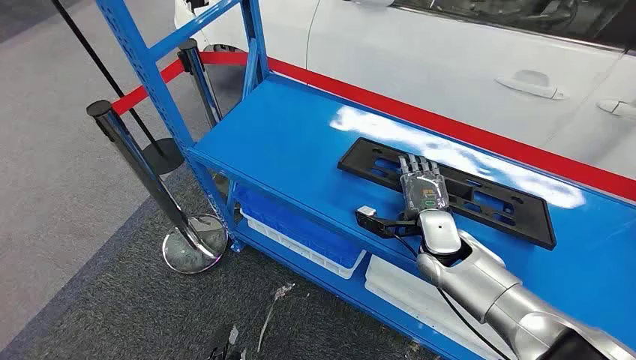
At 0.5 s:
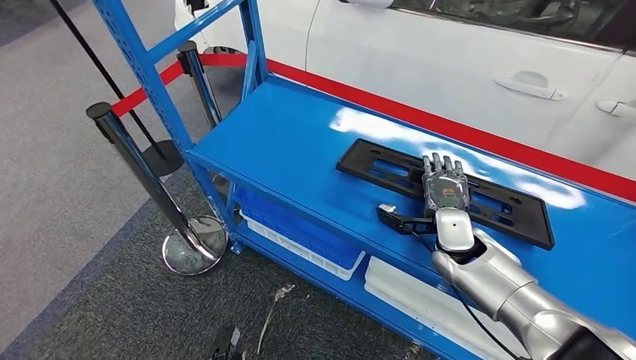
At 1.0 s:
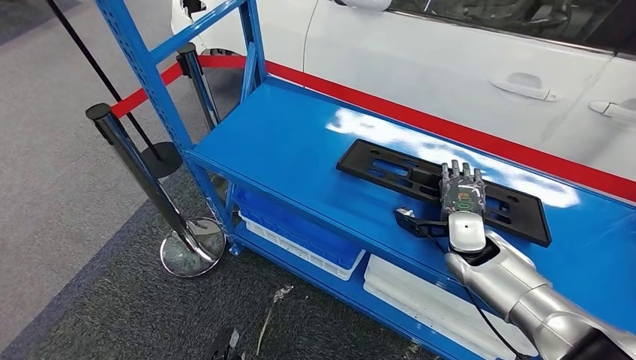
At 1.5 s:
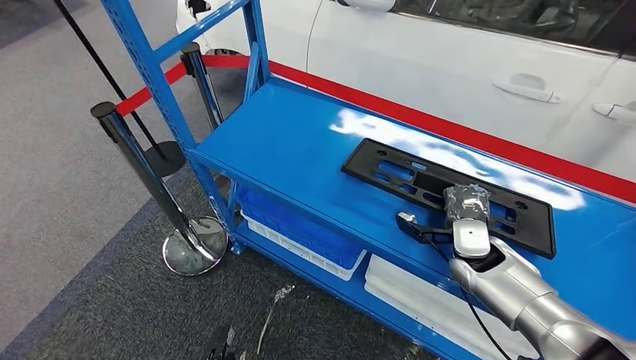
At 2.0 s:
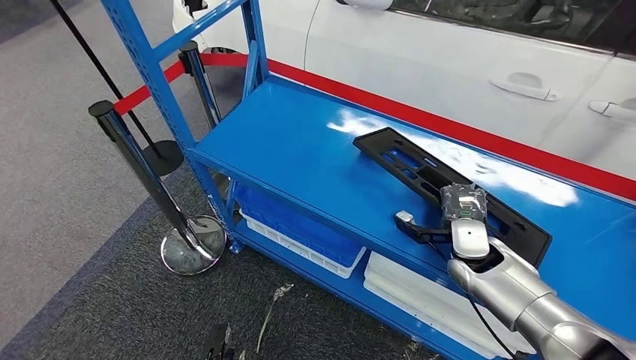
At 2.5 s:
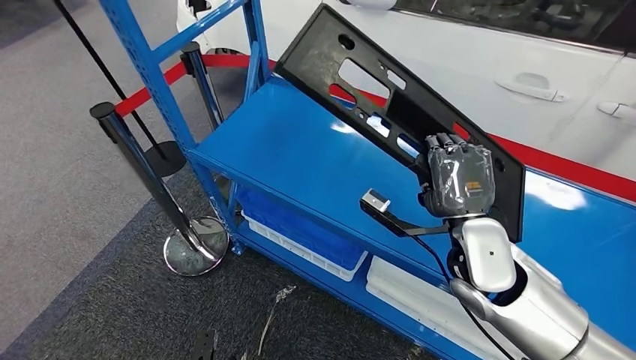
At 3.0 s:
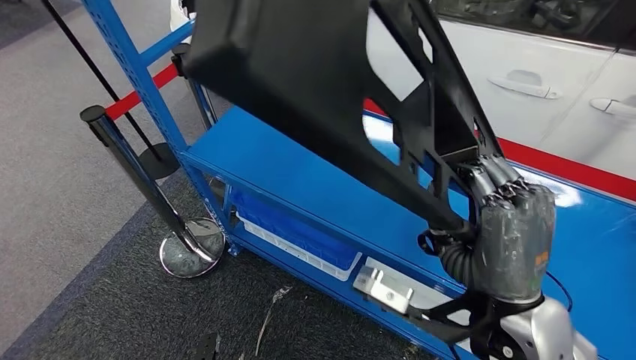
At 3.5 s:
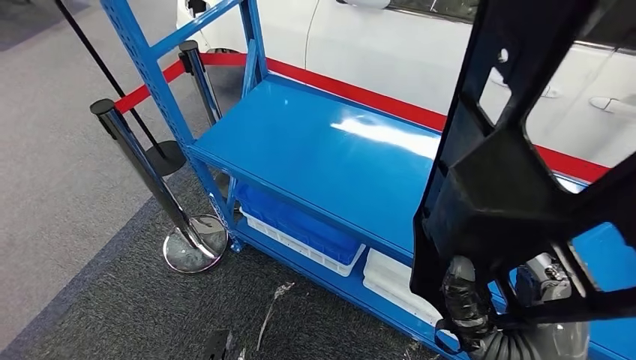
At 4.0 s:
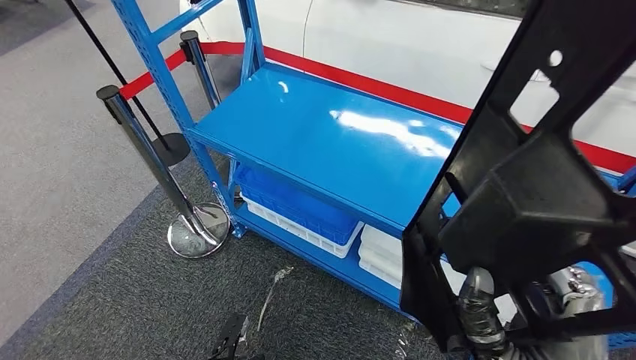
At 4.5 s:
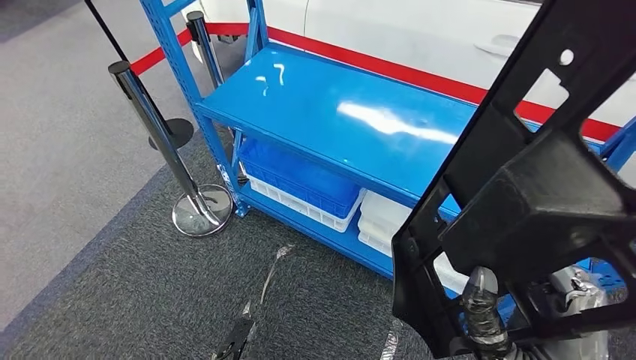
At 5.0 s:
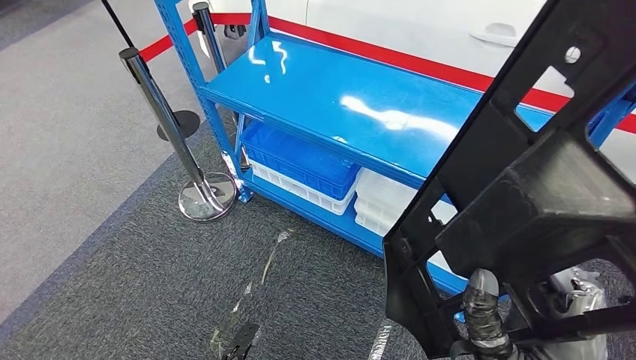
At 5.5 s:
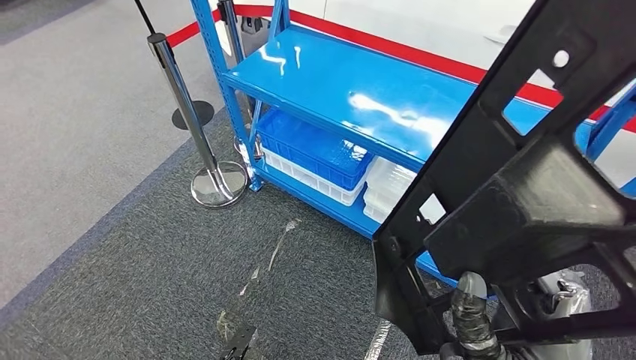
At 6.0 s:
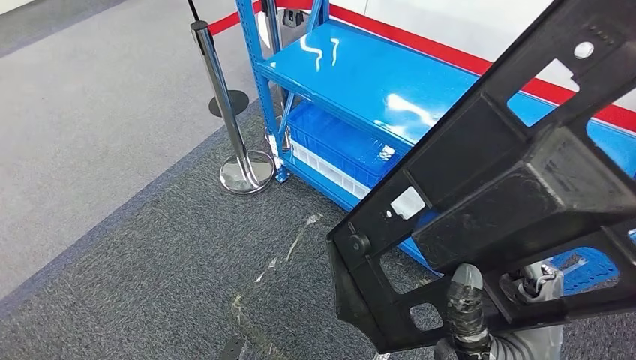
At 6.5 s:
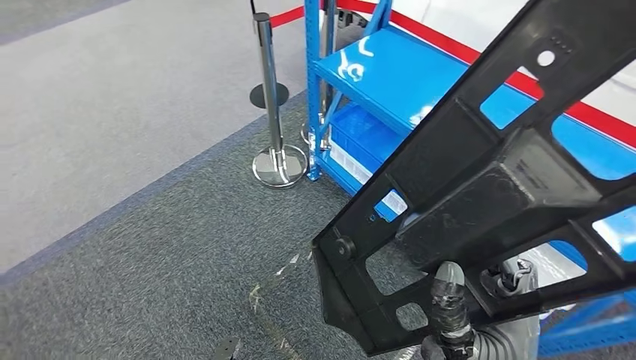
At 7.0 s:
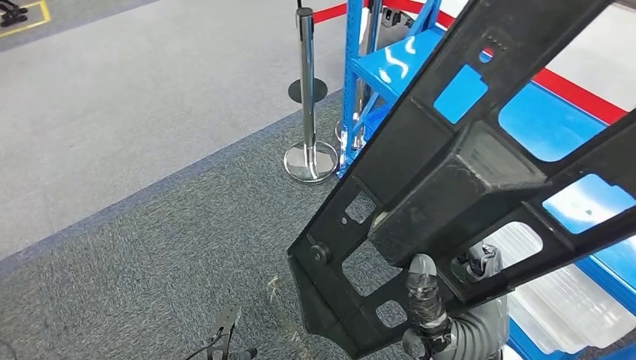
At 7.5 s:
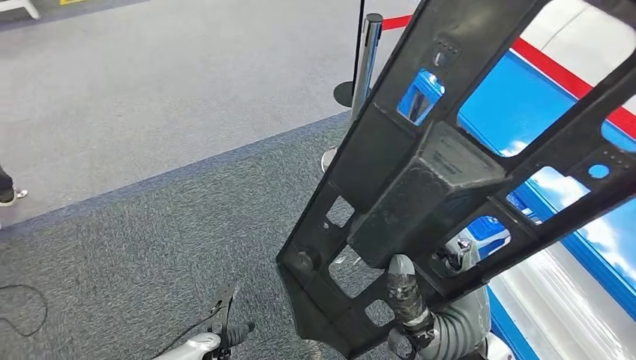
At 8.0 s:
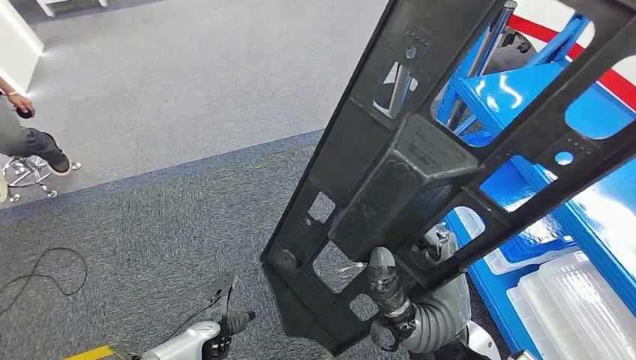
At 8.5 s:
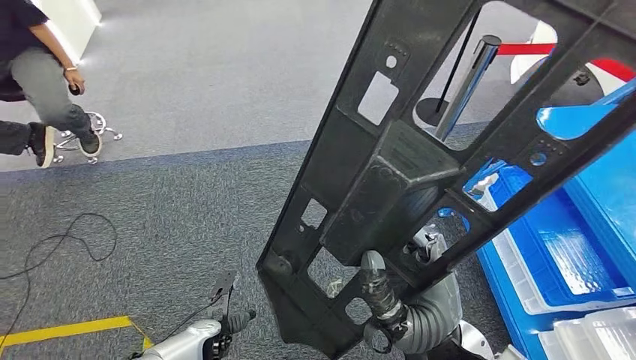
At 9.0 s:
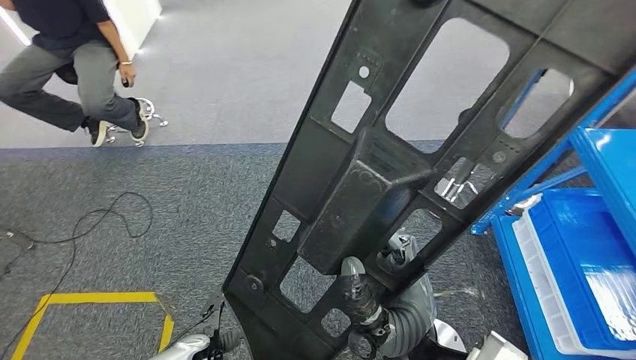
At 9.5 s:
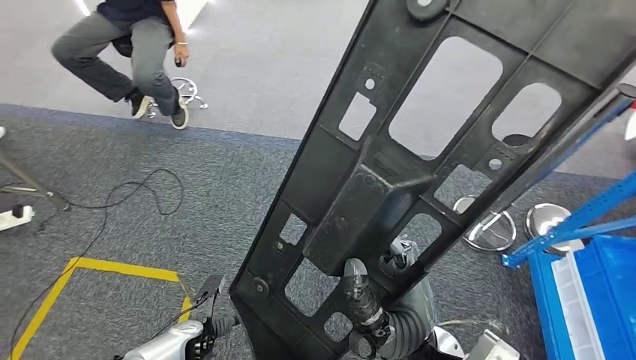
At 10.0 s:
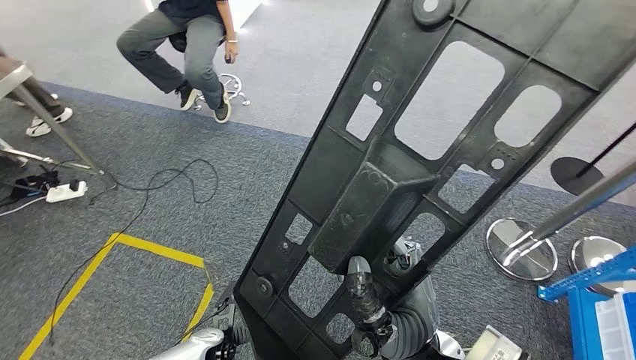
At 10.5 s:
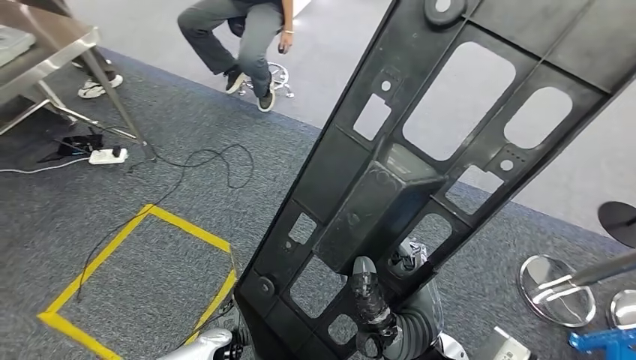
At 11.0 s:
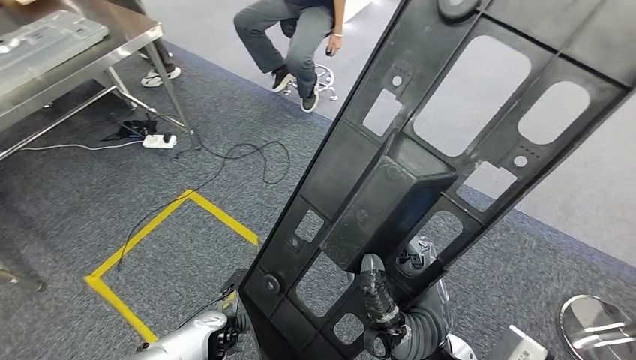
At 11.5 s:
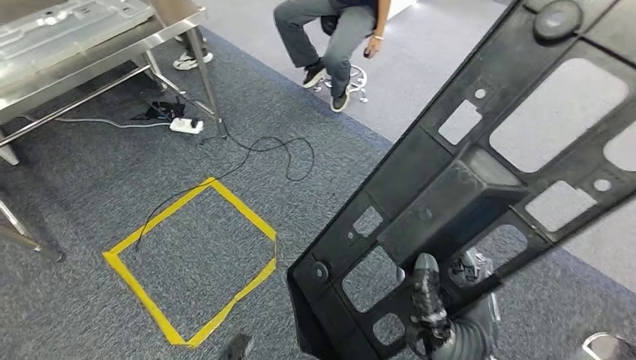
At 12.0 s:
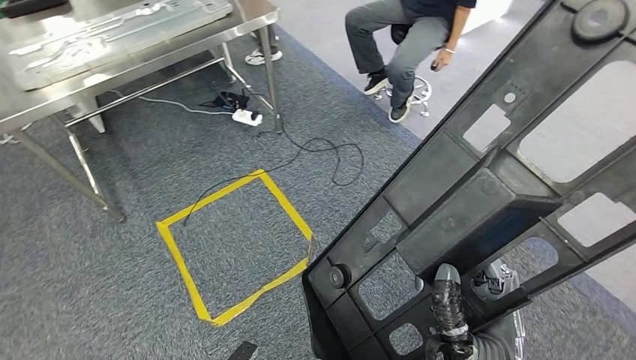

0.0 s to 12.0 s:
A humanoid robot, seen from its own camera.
Step, 0.0 to 4.0 s: Pick up the large material from the shelf.

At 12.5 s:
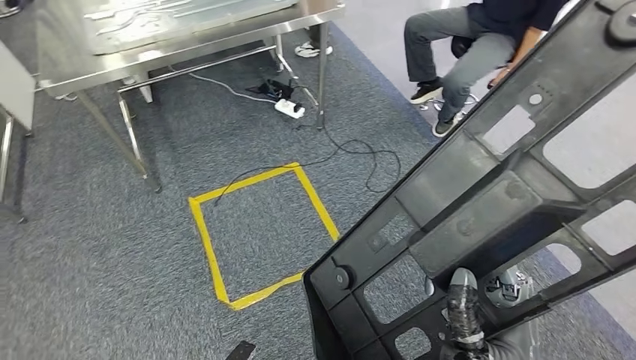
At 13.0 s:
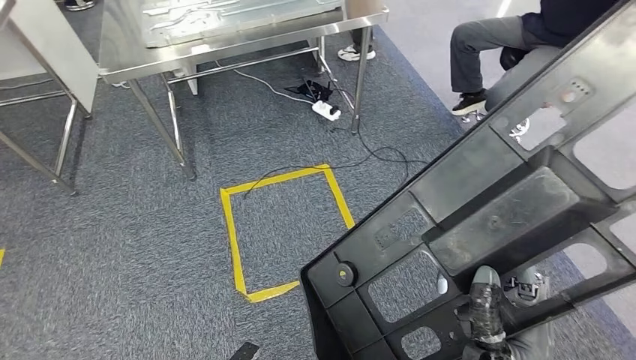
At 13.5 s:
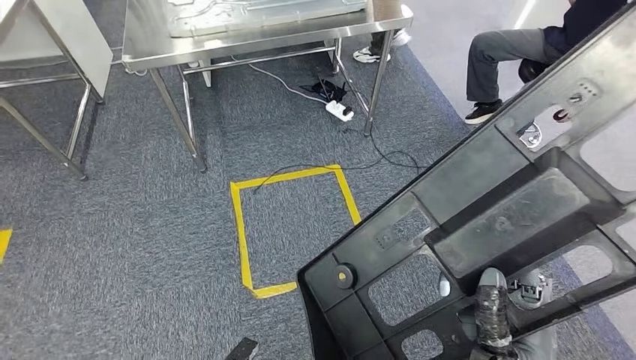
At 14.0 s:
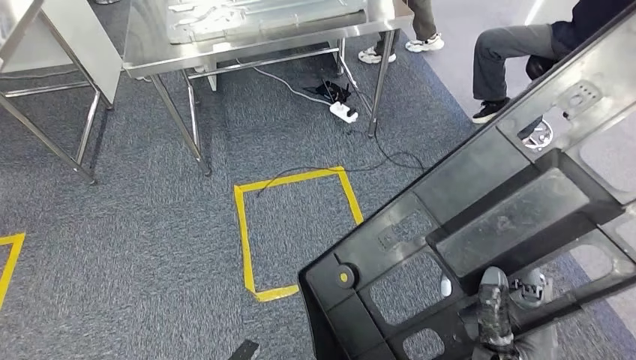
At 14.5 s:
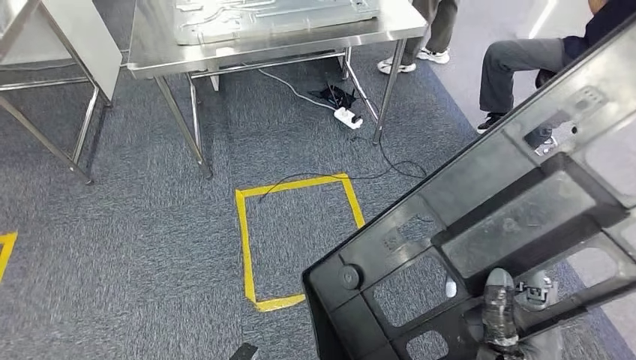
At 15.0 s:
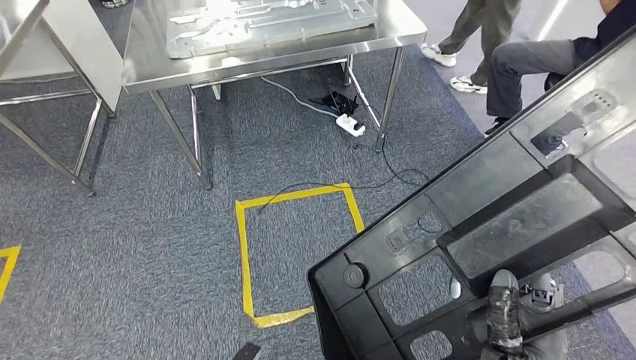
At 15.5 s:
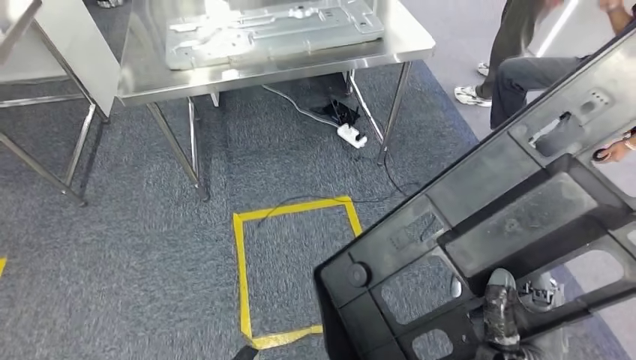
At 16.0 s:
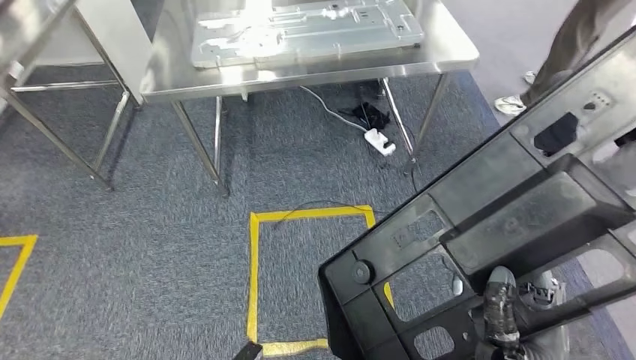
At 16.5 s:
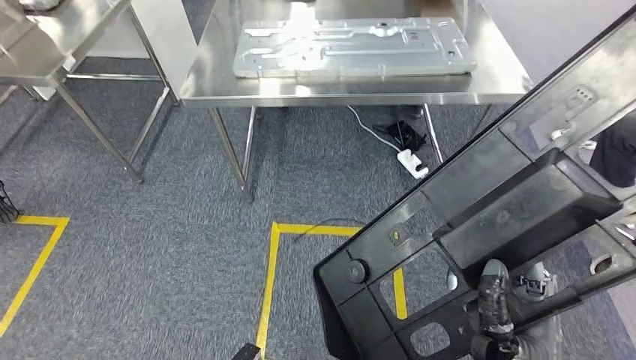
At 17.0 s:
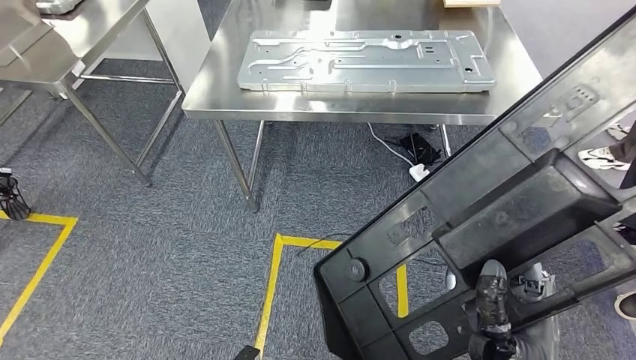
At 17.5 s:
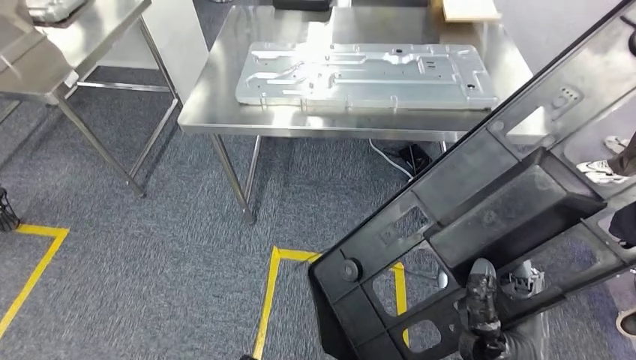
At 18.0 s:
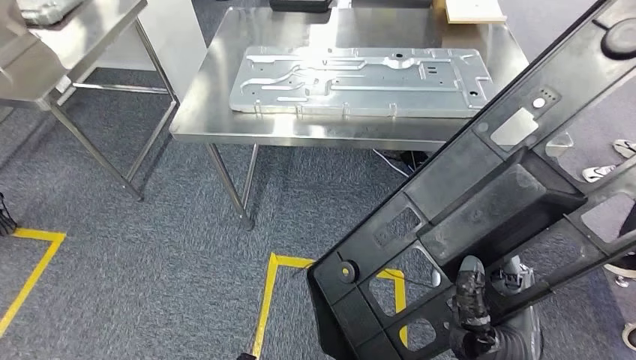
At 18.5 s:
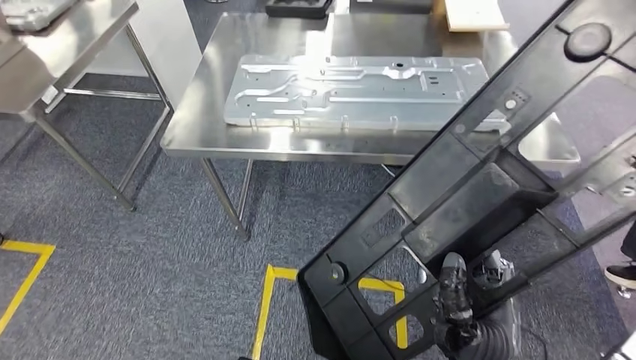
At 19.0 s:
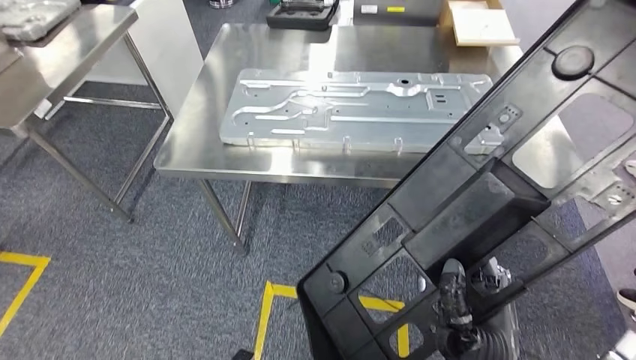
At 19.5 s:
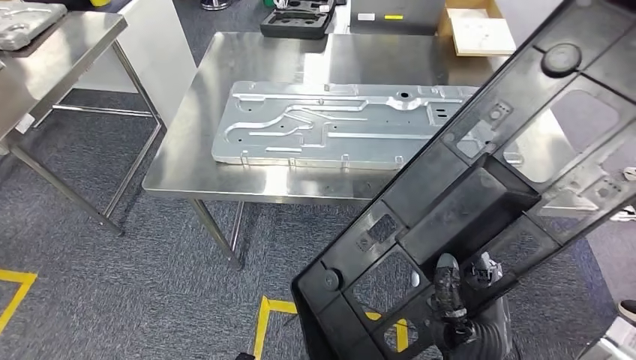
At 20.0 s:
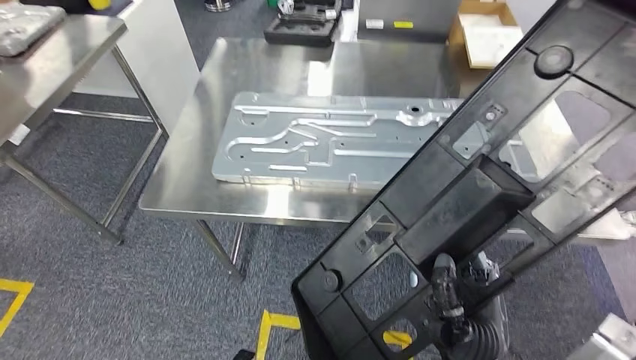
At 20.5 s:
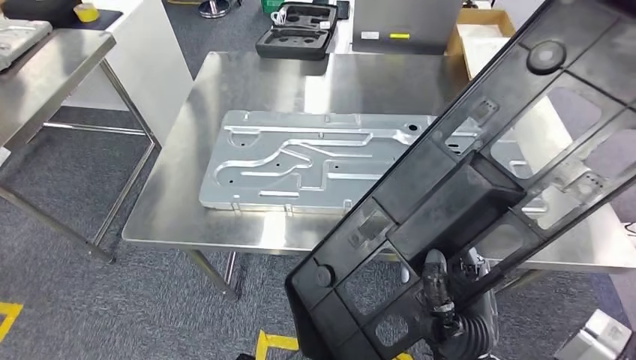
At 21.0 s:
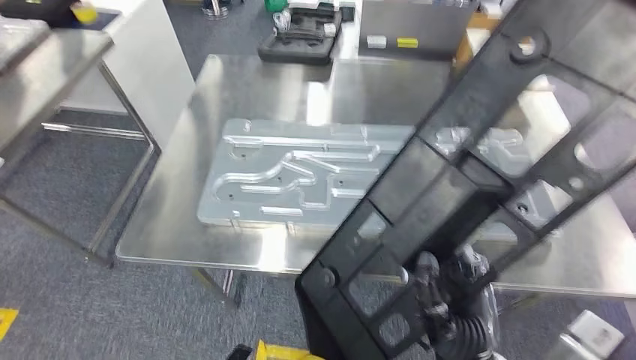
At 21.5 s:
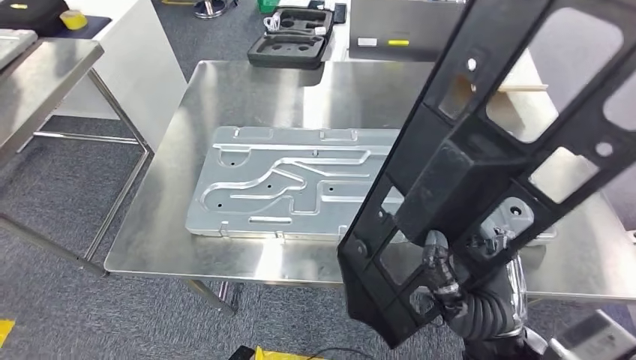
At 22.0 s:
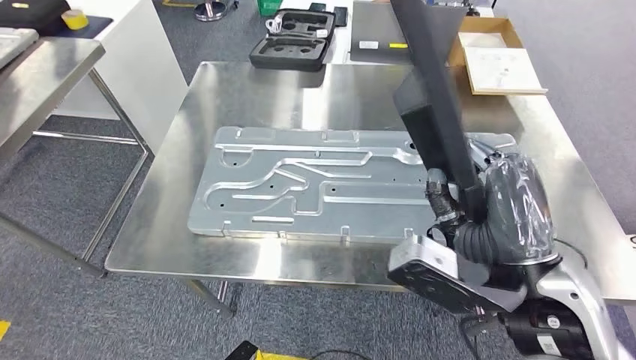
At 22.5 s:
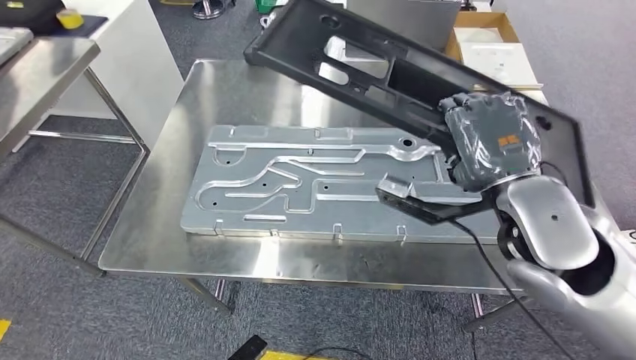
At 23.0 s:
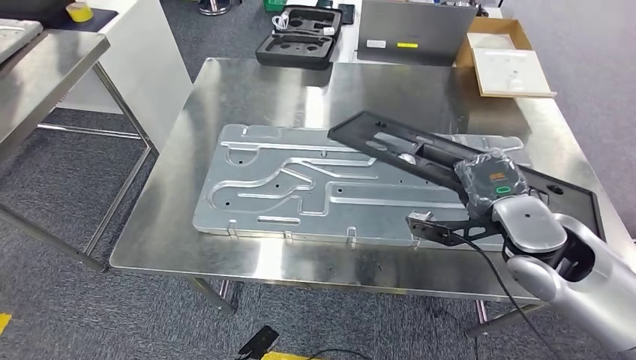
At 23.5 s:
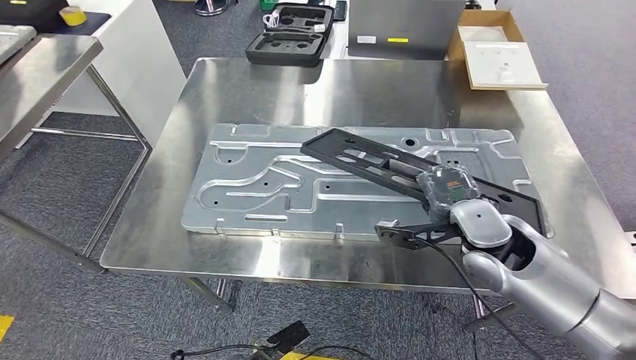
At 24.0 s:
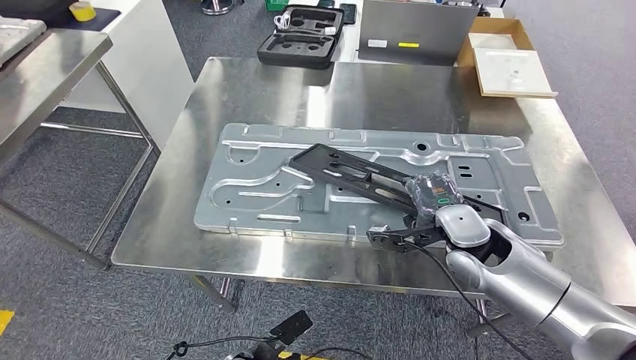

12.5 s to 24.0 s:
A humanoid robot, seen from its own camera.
Step, 12.5 to 20.0 s: Move the large material to the workbench.
